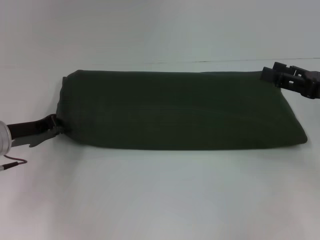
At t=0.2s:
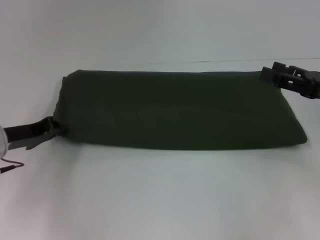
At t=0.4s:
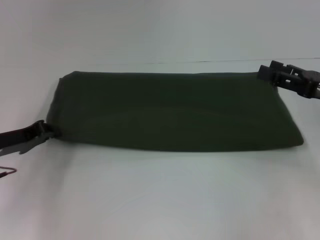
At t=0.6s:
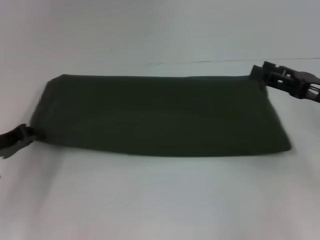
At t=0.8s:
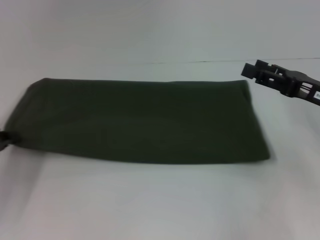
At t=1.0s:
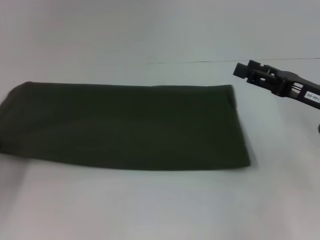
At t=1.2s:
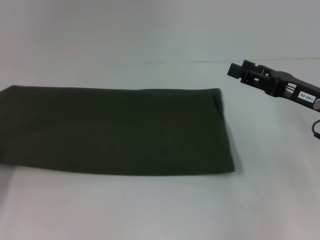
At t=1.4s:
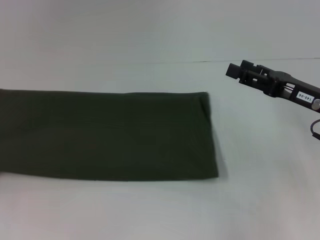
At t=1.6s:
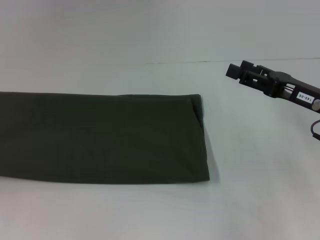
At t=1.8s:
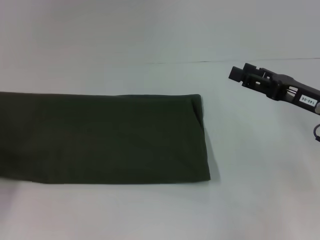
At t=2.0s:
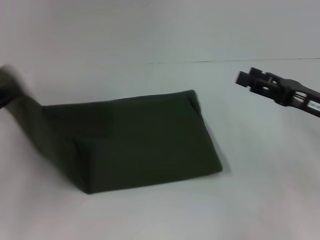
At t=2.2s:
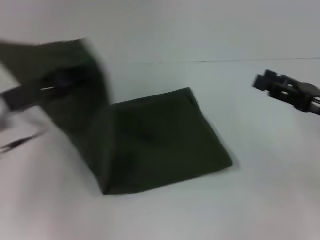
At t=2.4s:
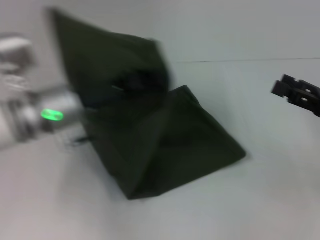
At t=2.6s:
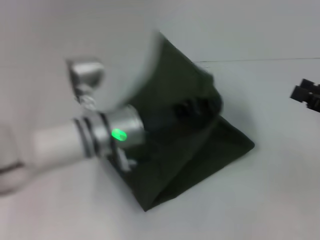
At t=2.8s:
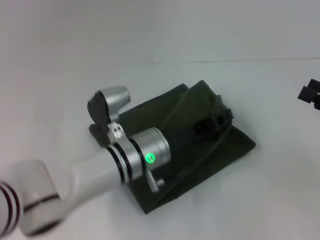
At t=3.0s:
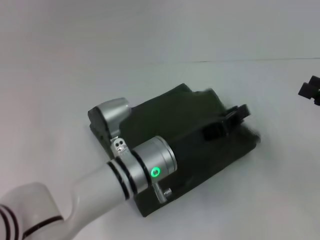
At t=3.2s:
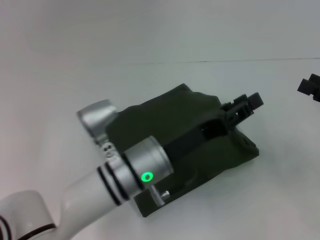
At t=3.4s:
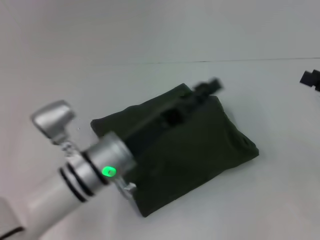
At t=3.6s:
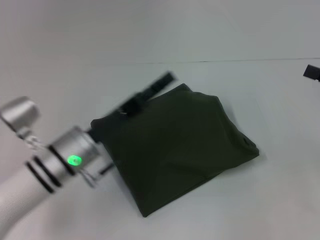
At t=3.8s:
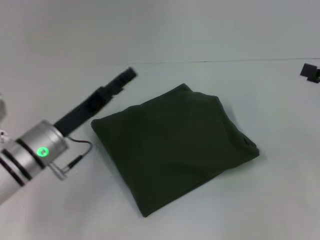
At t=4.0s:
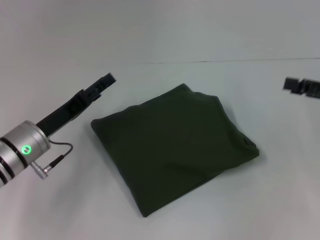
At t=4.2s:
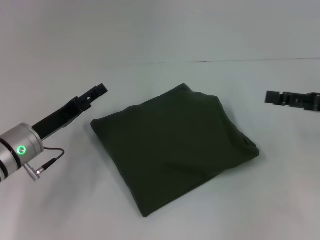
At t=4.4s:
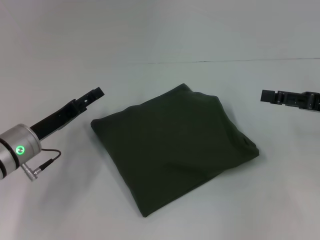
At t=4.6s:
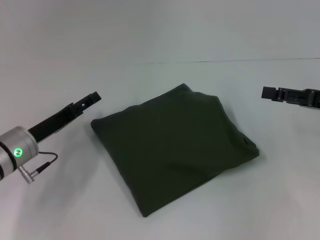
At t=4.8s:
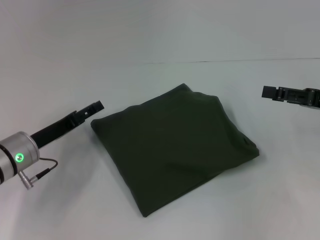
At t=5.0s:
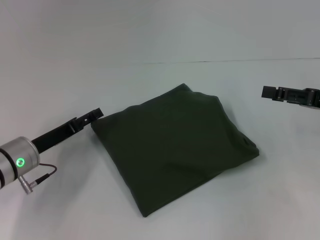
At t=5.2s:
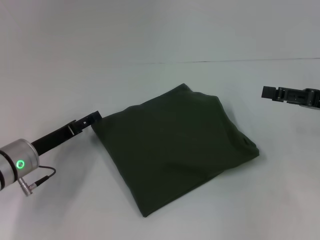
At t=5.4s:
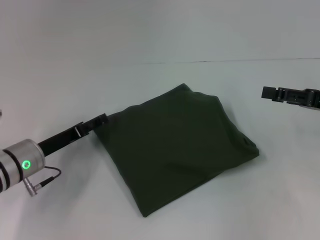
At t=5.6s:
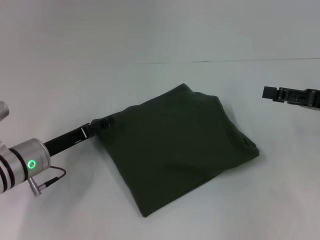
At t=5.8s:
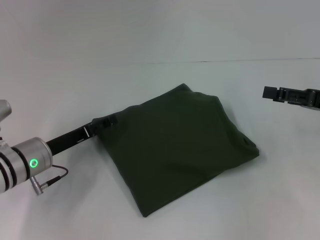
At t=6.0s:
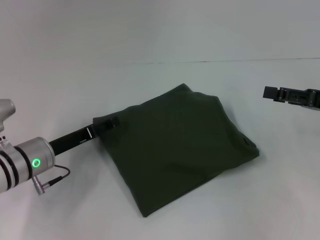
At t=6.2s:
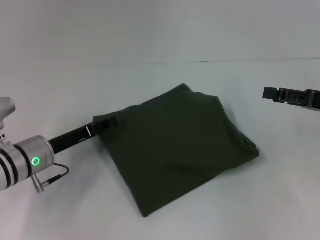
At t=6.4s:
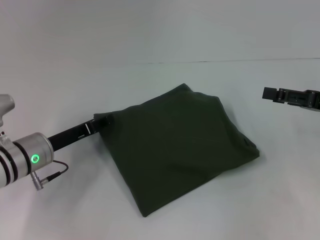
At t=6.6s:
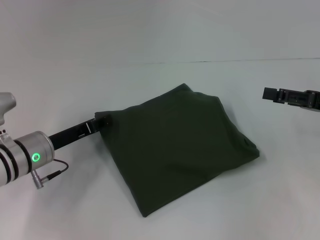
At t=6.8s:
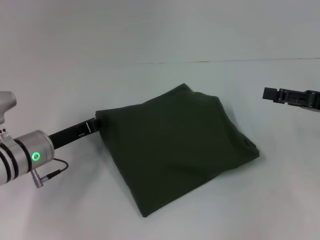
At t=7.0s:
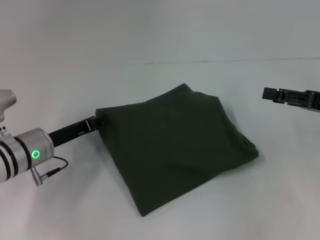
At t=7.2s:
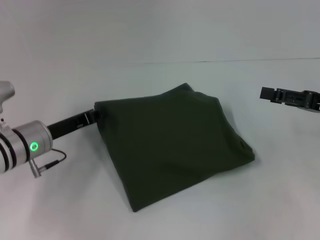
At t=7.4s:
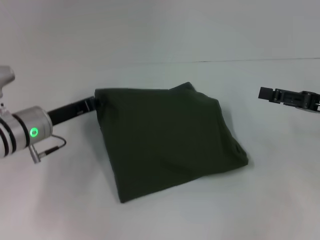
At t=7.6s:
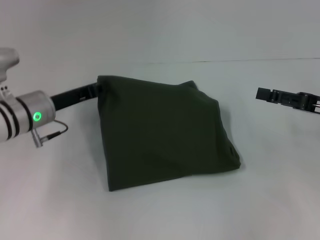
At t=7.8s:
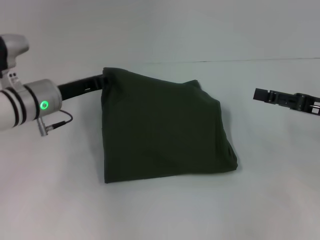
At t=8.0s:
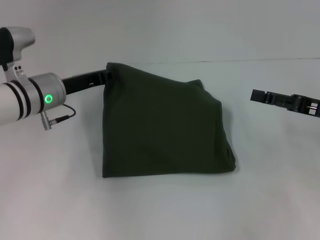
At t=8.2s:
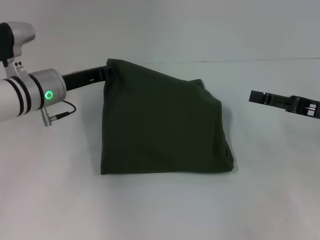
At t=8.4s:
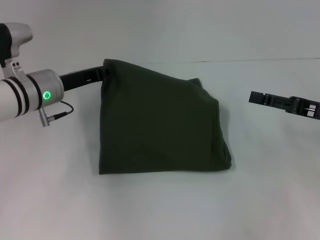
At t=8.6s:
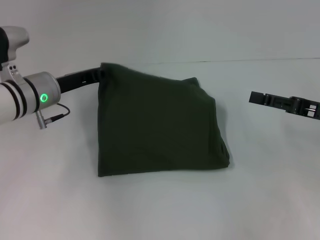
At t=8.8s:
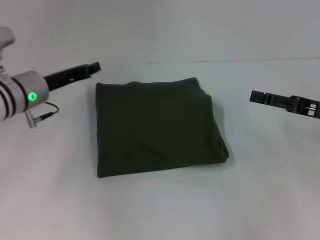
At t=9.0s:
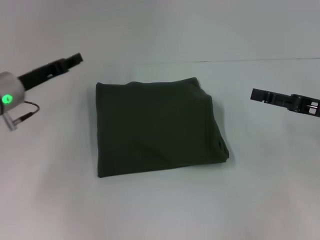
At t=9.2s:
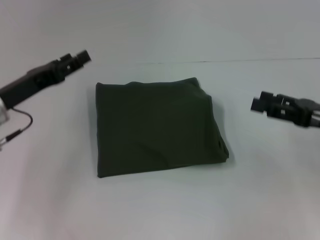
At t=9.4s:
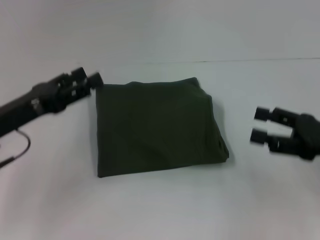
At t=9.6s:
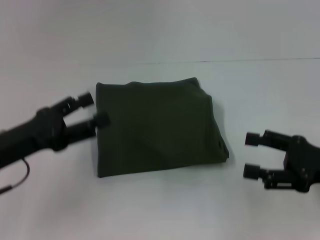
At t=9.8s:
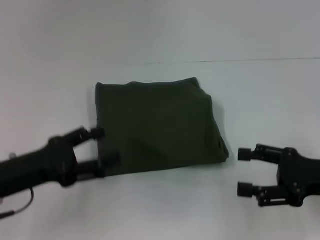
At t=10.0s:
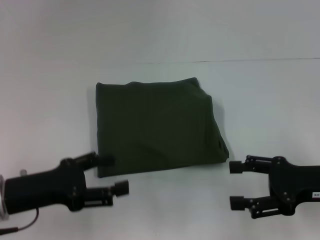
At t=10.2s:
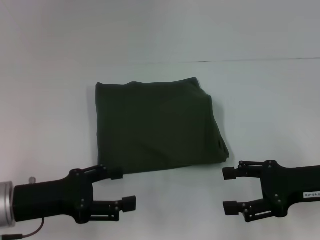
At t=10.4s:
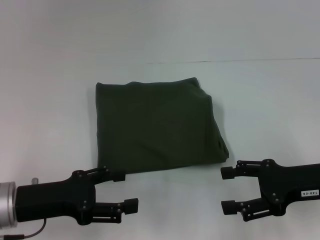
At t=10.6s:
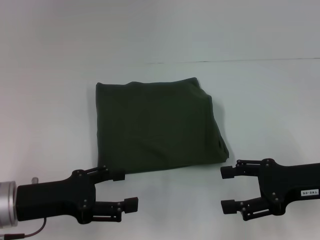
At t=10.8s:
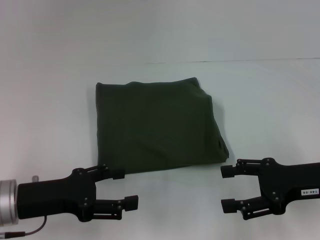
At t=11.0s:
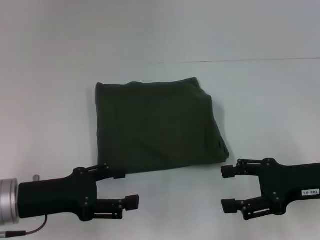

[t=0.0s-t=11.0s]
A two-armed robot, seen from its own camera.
Step, t=0.0s to t=3.2s: Fold the clothes with your left hand.
t=0.0s to t=1.6s: The left gripper heads to the left and backward, covering approximately 20 cm. Meanwhile the right gripper changes place by some 5 cm.
t=1.6s to t=3.2s: The left gripper heads to the right, covering about 35 cm; the right gripper travels to the right by roughly 10 cm.
t=3.2s to t=4.8s: The left gripper travels to the left by roughly 20 cm, and opens. The right gripper moves some 5 cm.
t=4.8s to t=6.2s: The grippers make only small movements.
t=6.2s to t=7.8s: The left gripper heads forward and upward, covering roughly 10 cm, and closes up.
t=7.8s to t=9.4s: The left gripper heads backward and to the left, covering some 10 cm, and opens its fingers; the right gripper travels backward by roughly 5 cm.
t=9.4s to t=11.0s: The left gripper shifts by approximately 5 cm.

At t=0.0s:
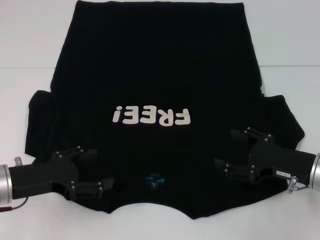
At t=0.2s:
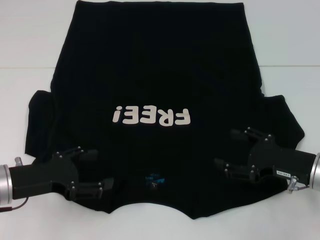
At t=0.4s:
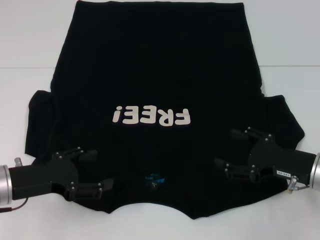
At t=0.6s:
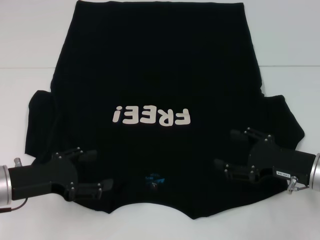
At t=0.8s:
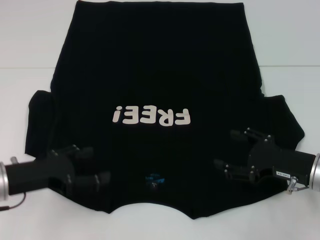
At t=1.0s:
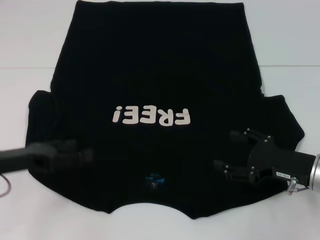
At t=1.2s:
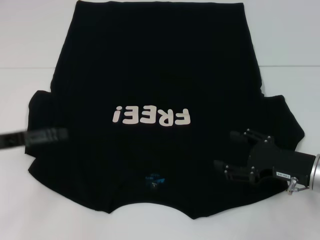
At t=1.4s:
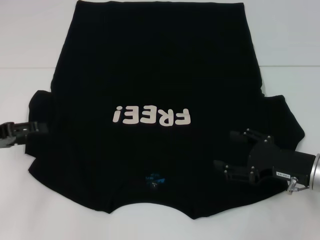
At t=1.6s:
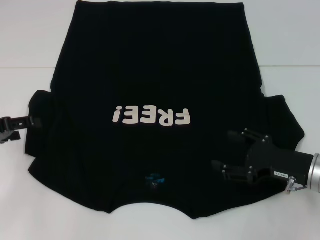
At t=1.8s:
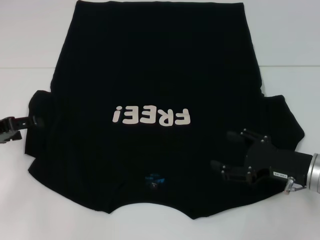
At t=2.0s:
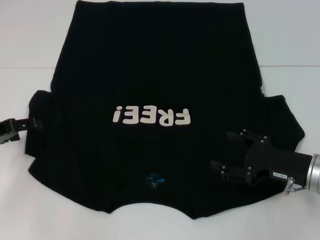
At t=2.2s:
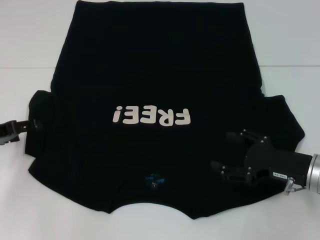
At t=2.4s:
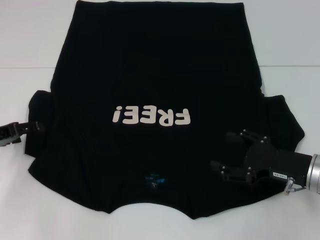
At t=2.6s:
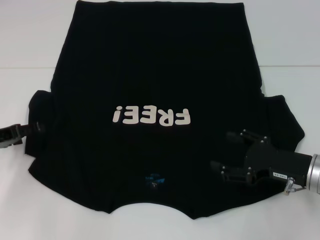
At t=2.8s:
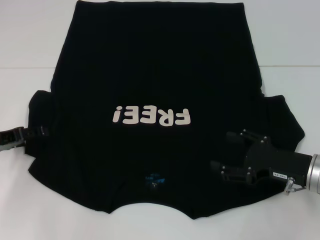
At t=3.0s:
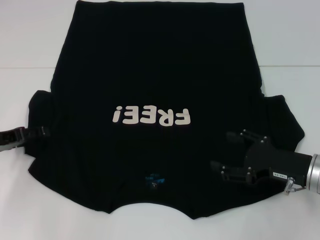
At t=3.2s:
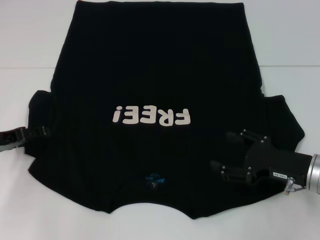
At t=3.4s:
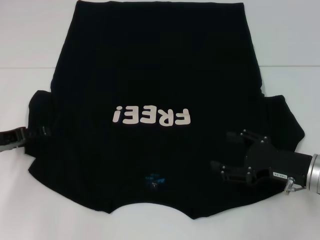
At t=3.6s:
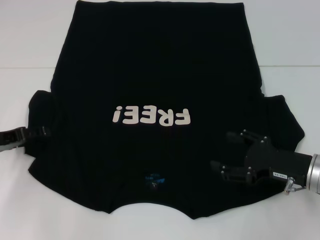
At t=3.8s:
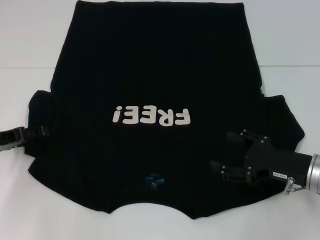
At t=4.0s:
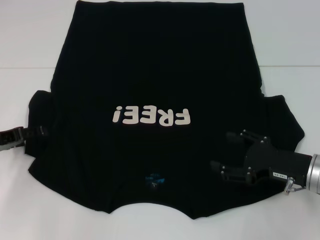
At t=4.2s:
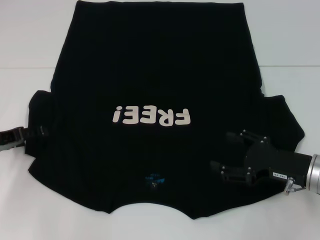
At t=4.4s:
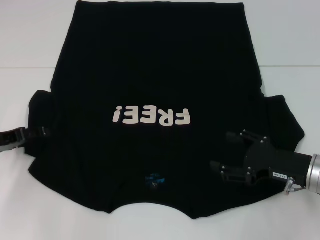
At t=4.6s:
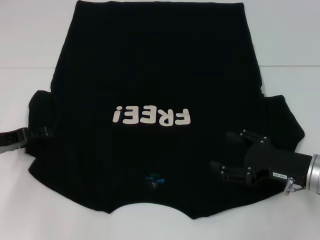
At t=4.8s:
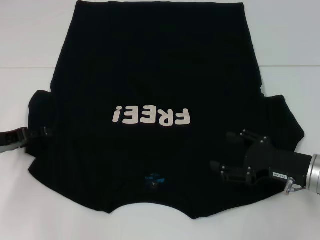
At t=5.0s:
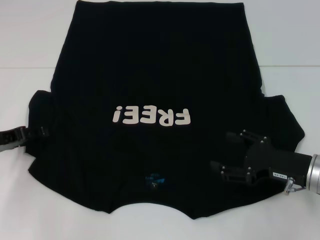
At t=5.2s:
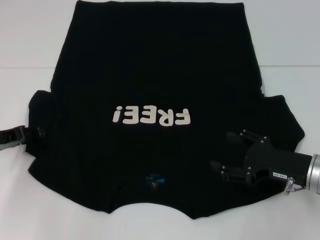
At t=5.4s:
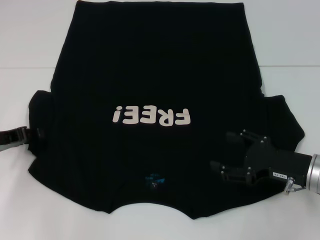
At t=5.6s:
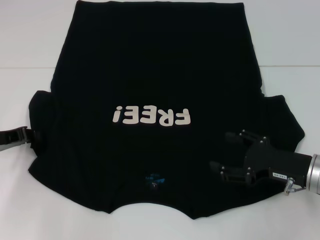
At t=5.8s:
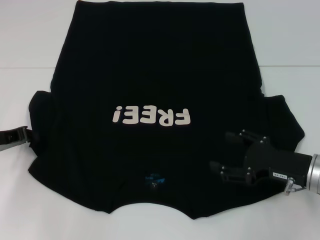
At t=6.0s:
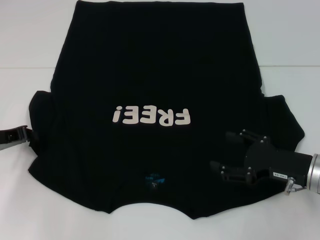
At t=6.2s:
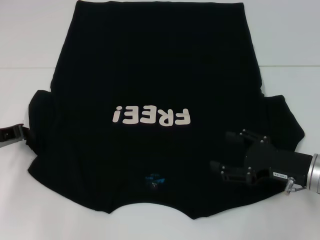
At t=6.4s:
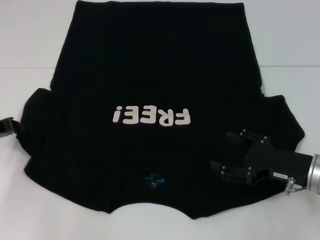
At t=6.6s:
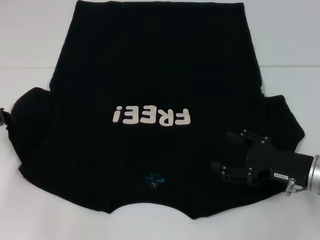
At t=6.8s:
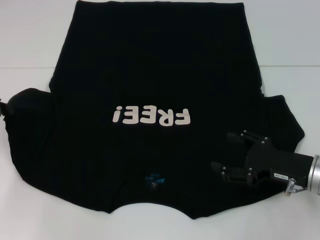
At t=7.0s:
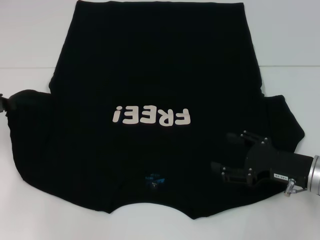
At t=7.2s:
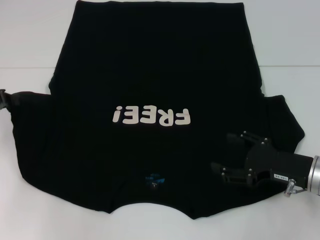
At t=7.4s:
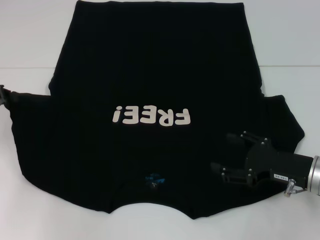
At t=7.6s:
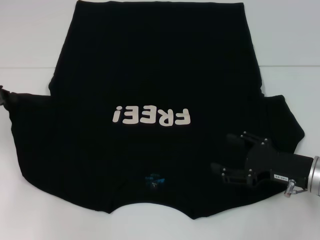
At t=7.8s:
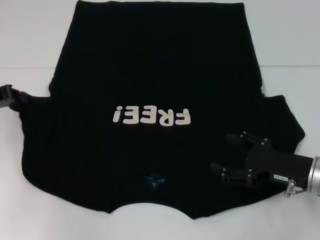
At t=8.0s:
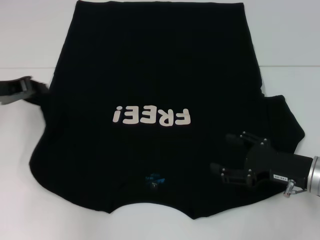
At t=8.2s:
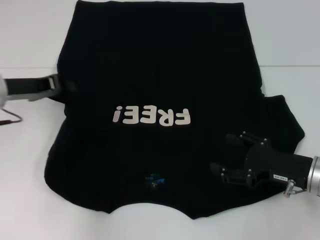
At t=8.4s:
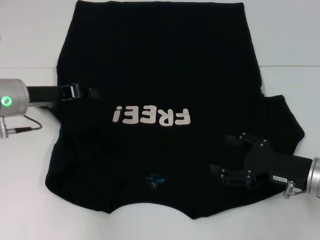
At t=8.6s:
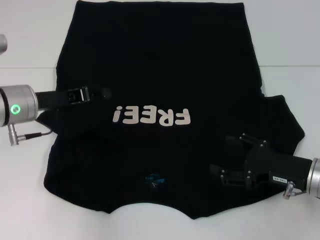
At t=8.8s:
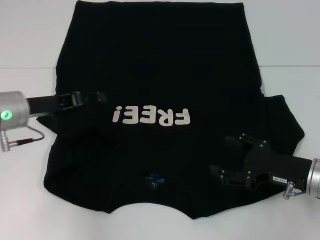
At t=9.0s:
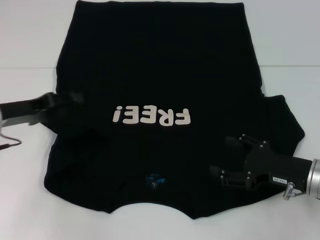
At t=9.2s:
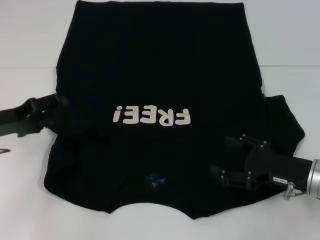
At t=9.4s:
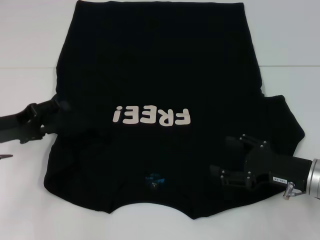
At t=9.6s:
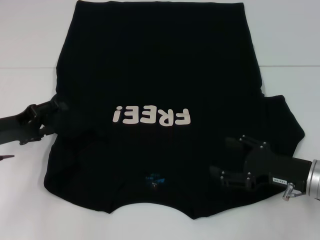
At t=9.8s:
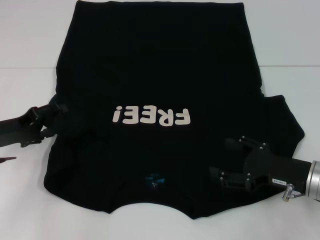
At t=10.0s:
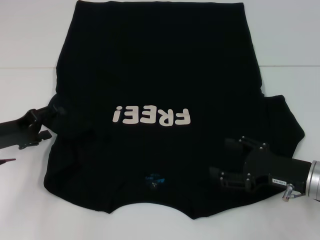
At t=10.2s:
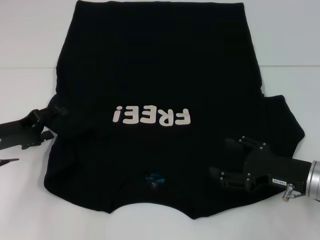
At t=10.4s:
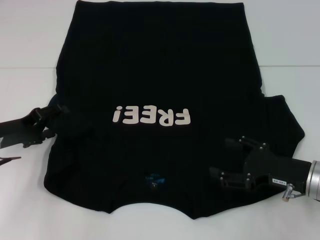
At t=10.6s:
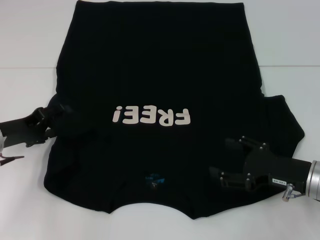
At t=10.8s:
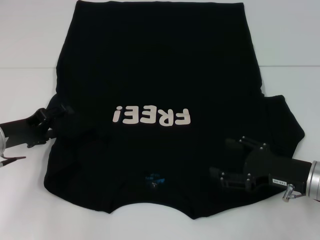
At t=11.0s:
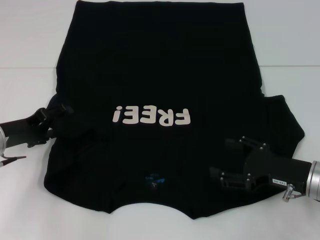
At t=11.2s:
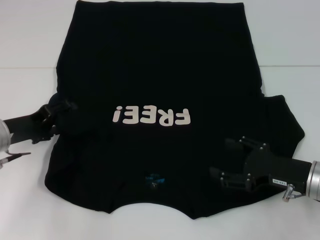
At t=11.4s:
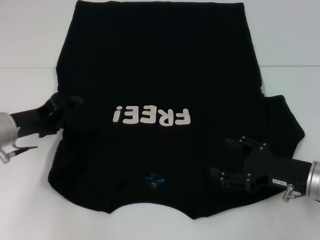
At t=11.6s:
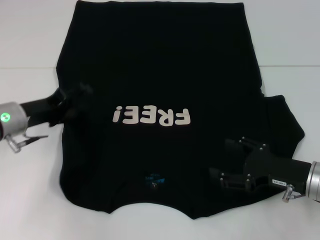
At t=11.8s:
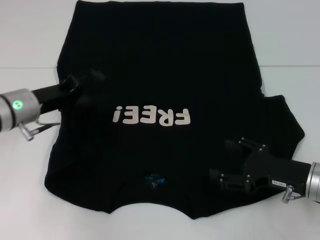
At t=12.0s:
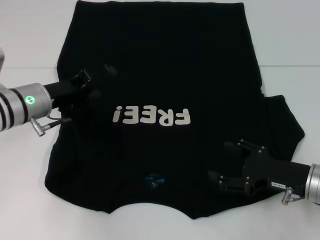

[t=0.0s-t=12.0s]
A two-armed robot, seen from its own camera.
t=0.0s to t=1.6s: The left gripper shifts approximately 10 cm to the left and forward.
t=1.6s to t=3.0s: The grippers move only a little.
t=3.0s to t=4.4s: Both grippers stay about where they are.
t=4.4s to t=6.0s: The left gripper closes its fingers.
t=6.0s to t=7.6s: The left gripper travels upward by roughly 5 cm.
t=7.6s to t=9.0s: The left gripper goes approximately 5 cm to the right, and opens up.
t=9.0s to t=10.4s: The grippers move only a little.
t=10.4s to t=12.0s: The left gripper goes roughly 10 cm to the right.
